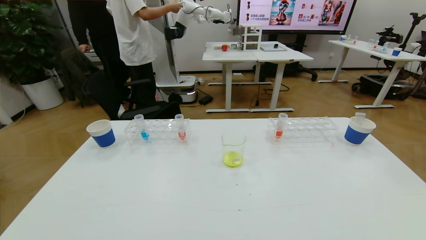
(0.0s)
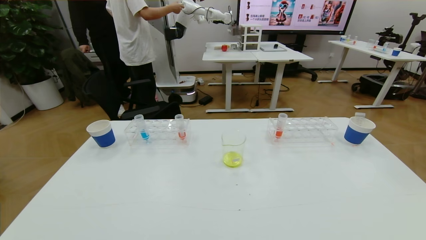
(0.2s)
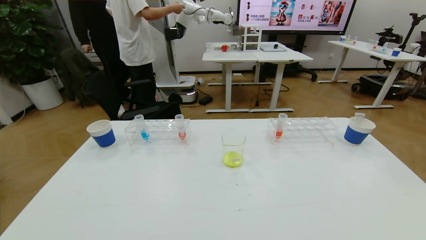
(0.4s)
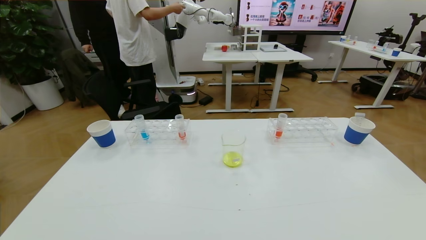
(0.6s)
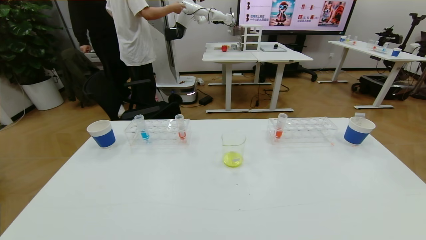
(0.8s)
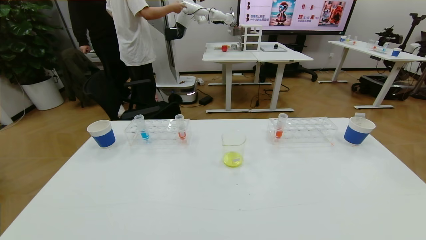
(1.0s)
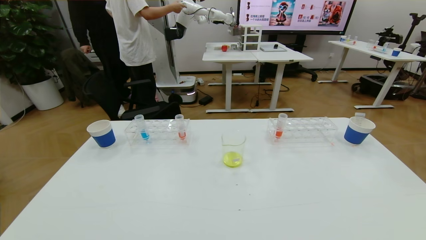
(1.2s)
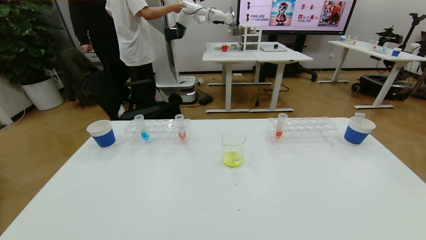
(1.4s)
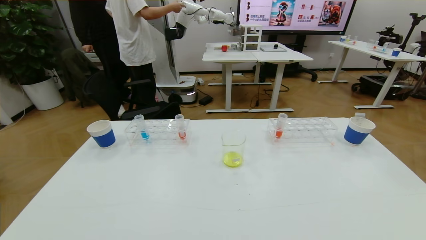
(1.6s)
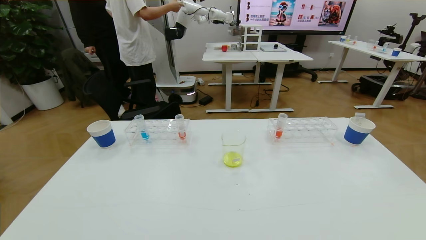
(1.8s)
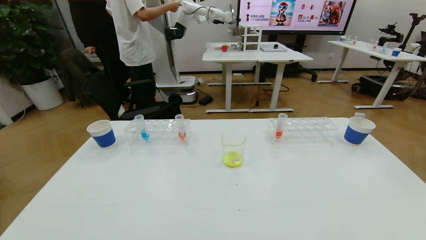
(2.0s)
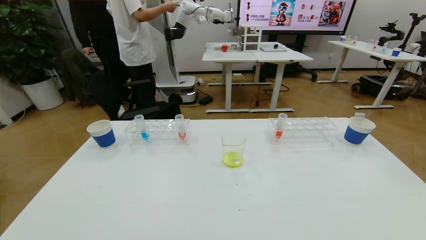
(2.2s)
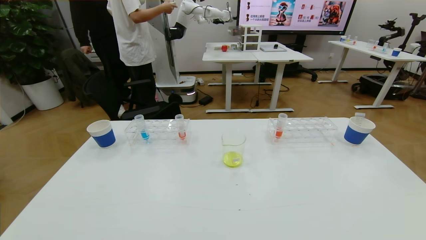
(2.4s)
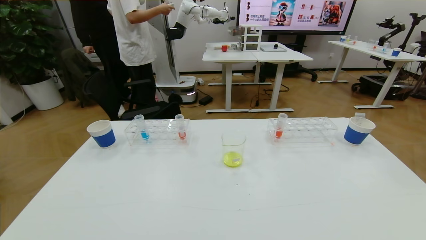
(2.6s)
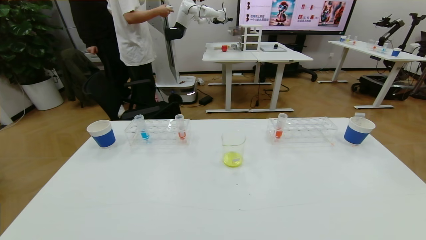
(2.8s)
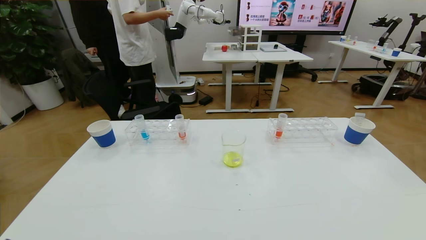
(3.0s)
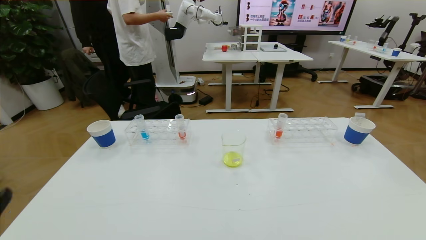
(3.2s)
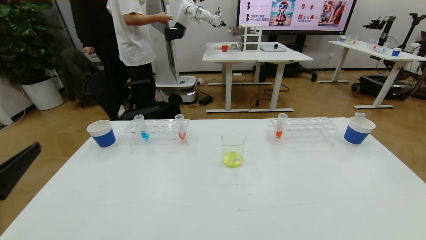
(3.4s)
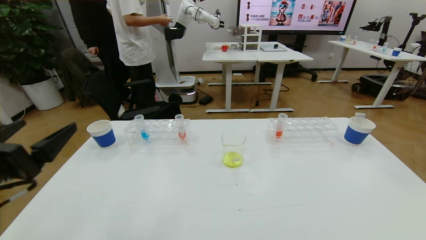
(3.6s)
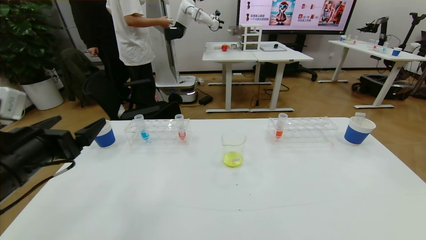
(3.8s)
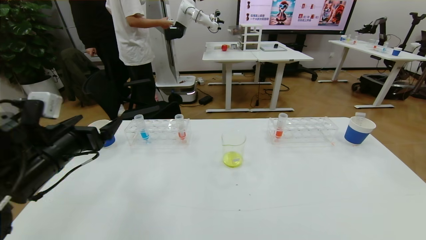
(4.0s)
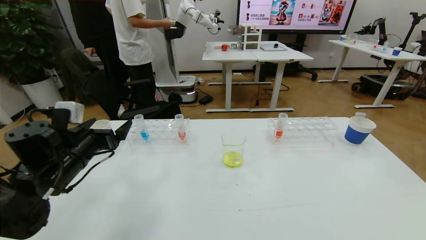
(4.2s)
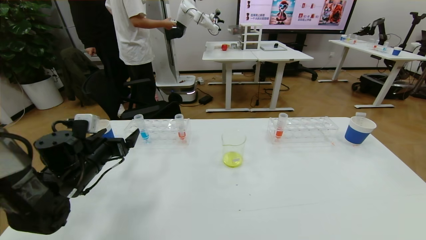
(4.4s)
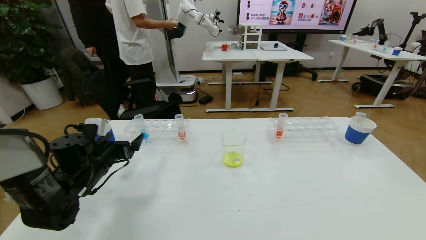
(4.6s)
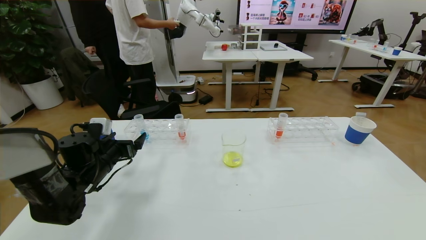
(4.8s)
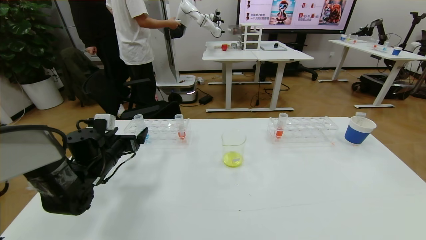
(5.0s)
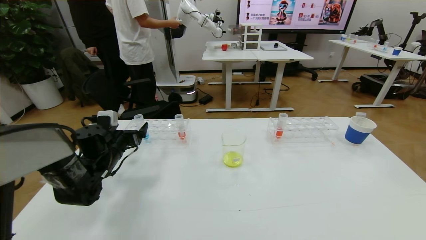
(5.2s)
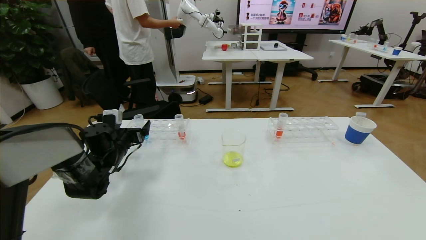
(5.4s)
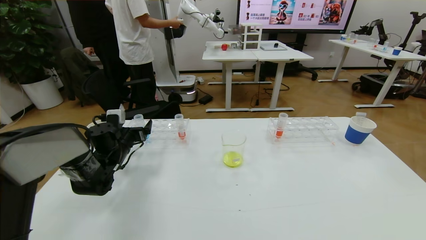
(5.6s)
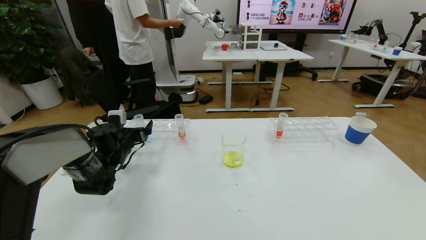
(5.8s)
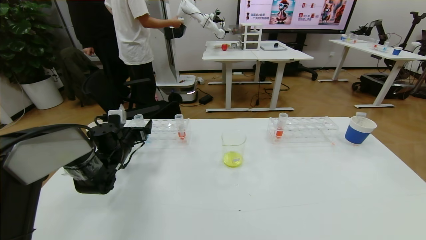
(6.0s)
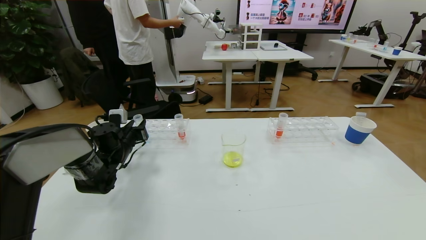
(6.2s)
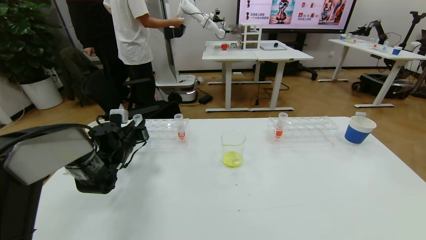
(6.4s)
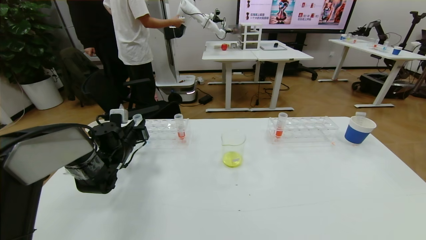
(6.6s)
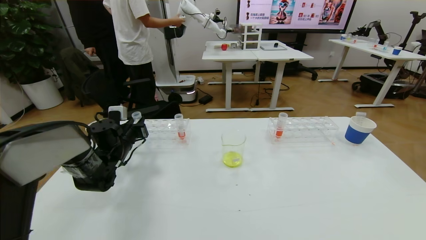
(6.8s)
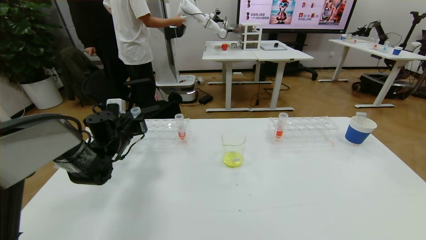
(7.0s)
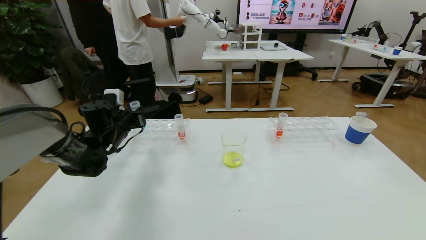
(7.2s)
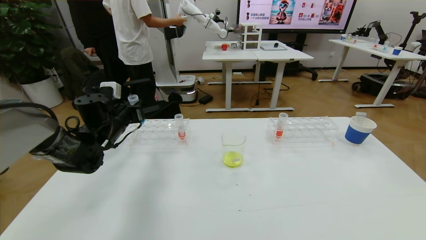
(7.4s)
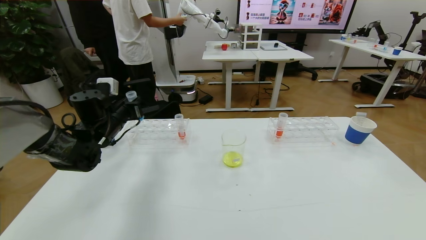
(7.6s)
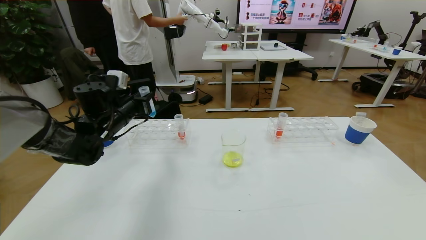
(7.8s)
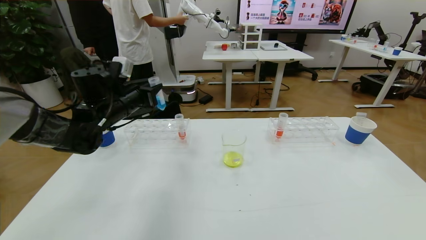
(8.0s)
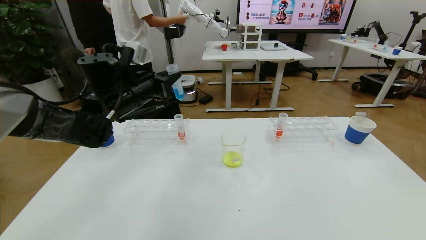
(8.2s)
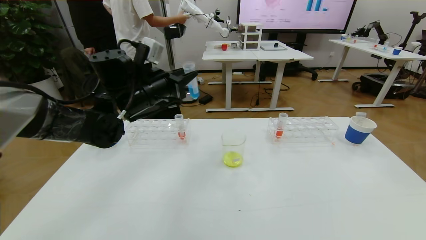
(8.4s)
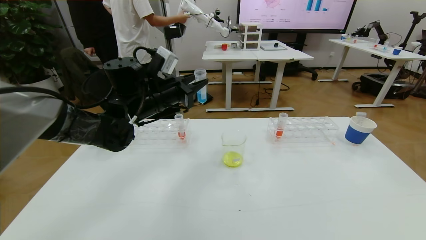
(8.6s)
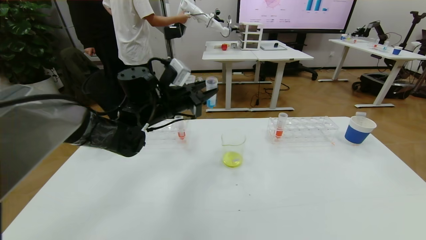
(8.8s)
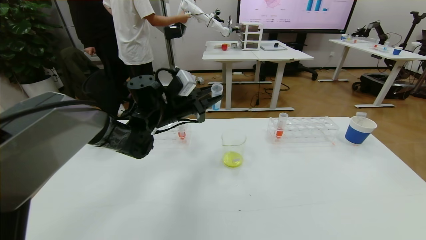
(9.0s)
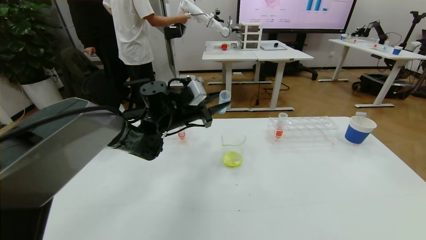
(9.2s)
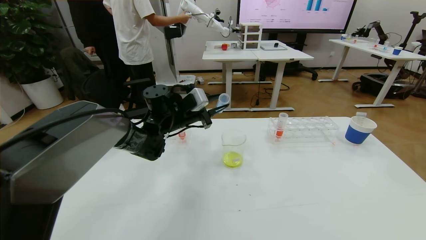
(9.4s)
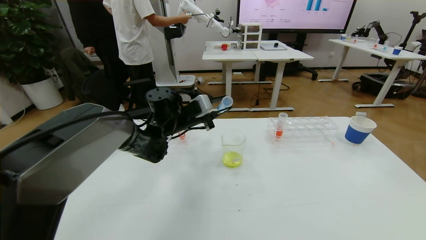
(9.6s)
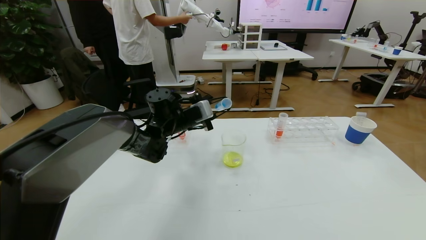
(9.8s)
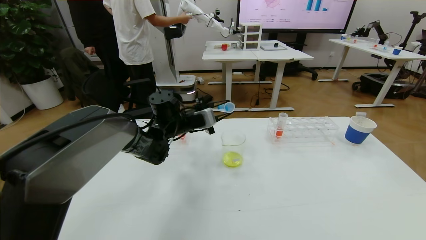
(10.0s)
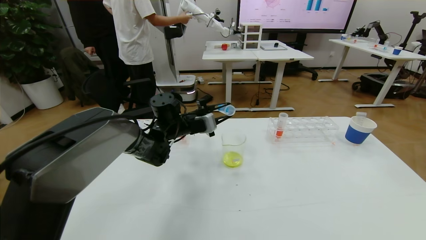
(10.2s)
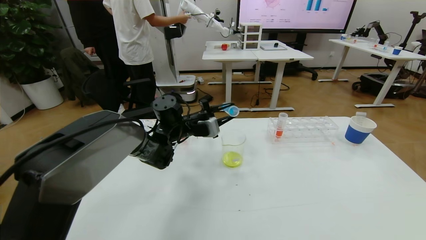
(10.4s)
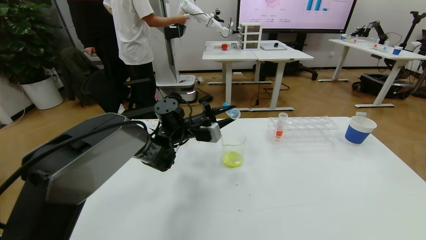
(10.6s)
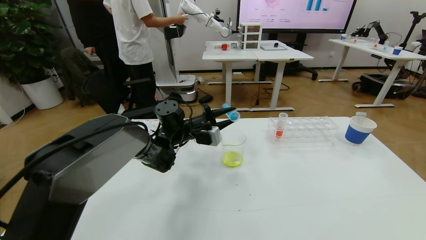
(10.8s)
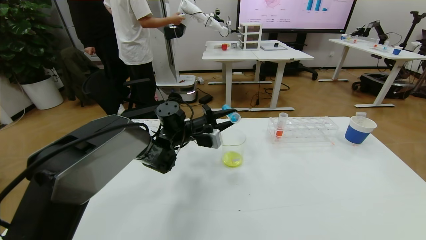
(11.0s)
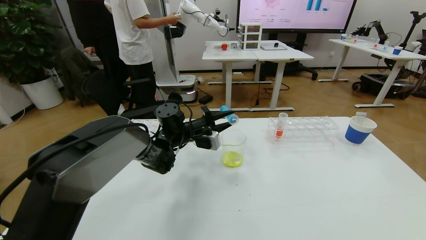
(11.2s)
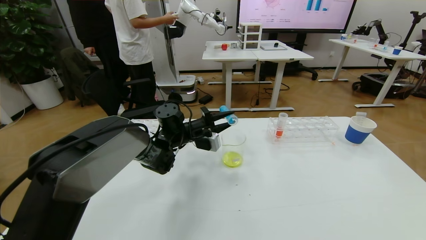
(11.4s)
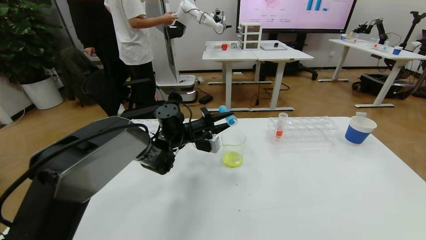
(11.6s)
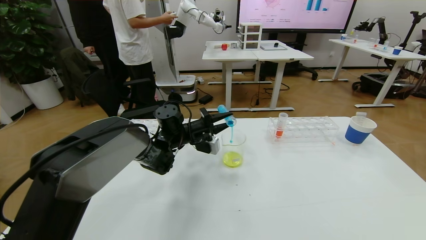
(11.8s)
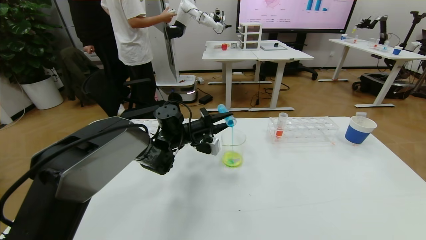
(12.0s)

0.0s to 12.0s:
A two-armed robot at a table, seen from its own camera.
Task of the whole recording: pick up the test tube with yellow pigment and the test tube with blue pigment by grippers and pour them into the beaker.
0.0s to 1.6s: The right gripper is displaced downward by approximately 20 cm.
1.6s to 3.0s: The left gripper shifts roughly 10 cm upward.
3.0s to 4.4s: The left gripper moves forward, about 30 cm.
4.4s to 6.0s: The left gripper shifts roughly 10 cm forward.
6.0s to 7.6s: The left gripper travels upward by roughly 10 cm, and closes.
7.6s to 9.0s: The left gripper goes about 15 cm to the right.
9.0s to 10.4s: The left gripper heads downward, covering some 5 cm.

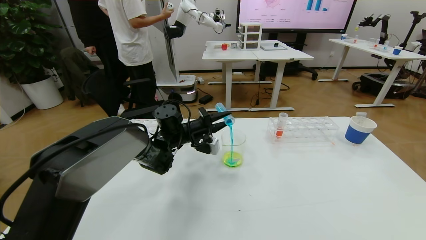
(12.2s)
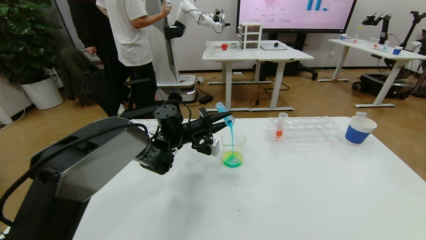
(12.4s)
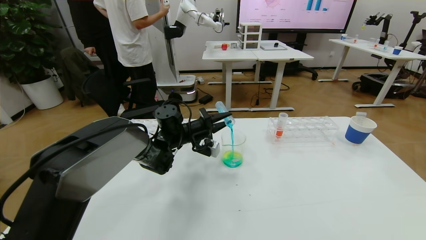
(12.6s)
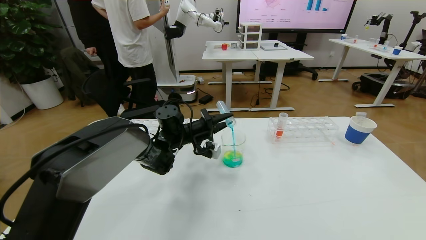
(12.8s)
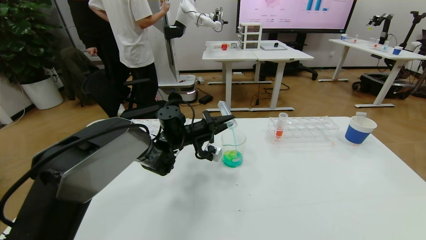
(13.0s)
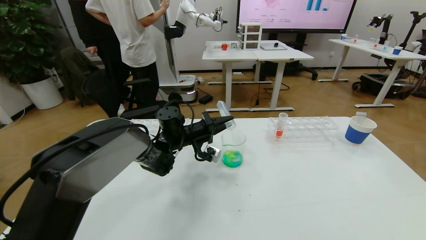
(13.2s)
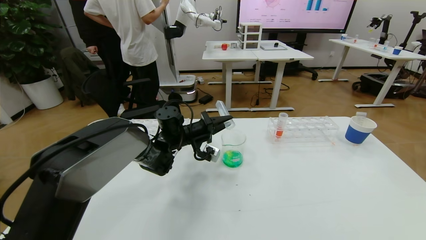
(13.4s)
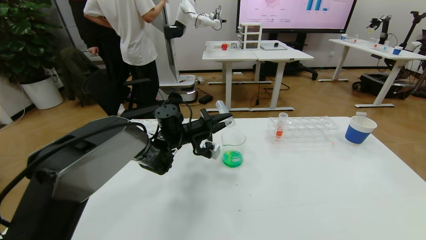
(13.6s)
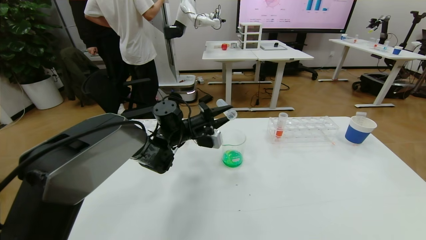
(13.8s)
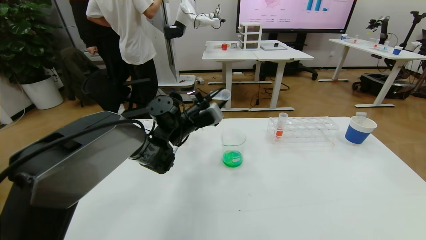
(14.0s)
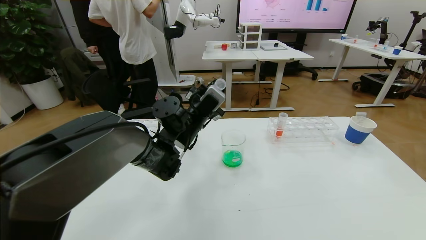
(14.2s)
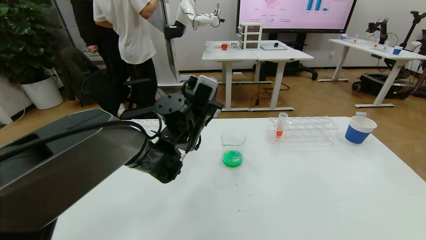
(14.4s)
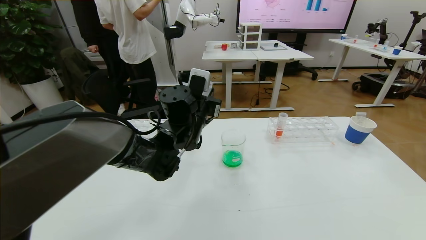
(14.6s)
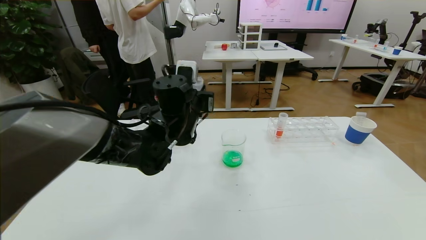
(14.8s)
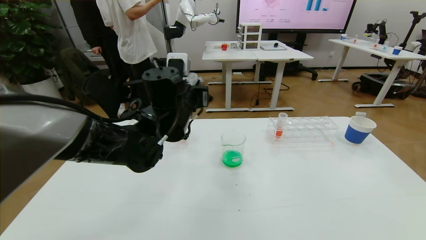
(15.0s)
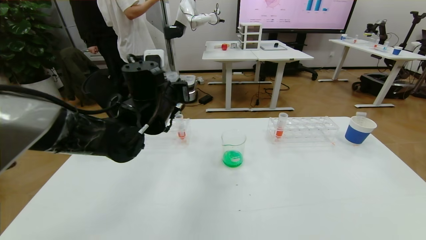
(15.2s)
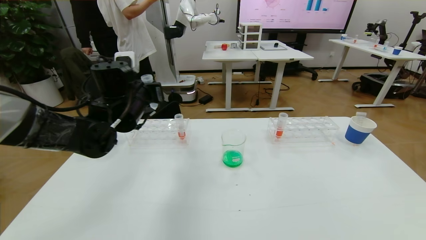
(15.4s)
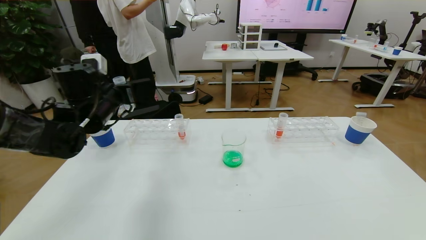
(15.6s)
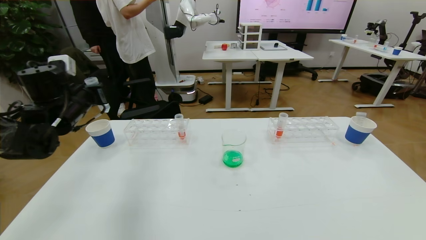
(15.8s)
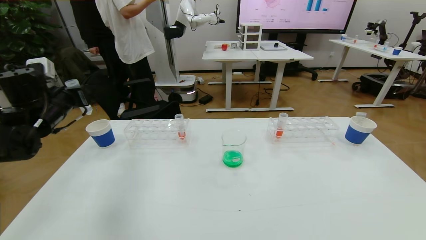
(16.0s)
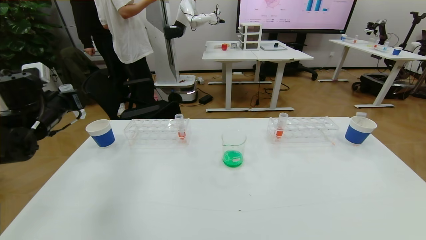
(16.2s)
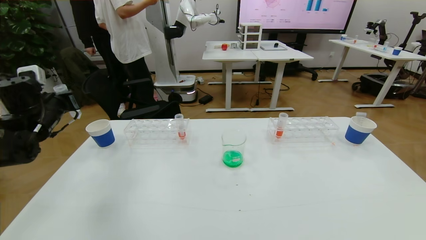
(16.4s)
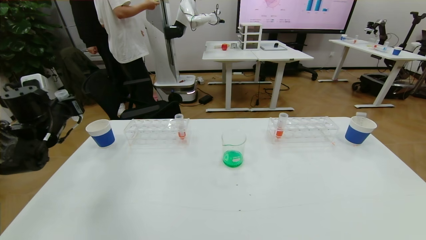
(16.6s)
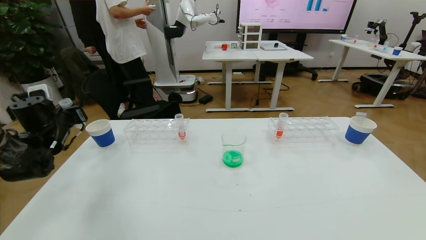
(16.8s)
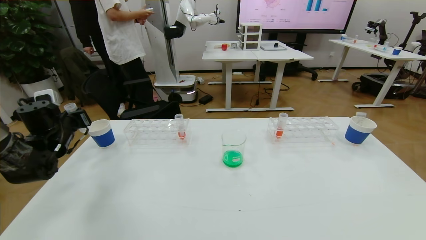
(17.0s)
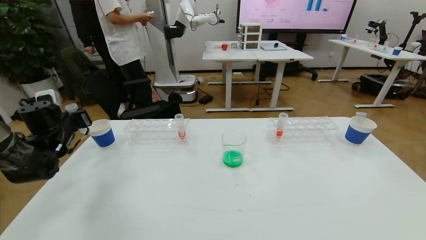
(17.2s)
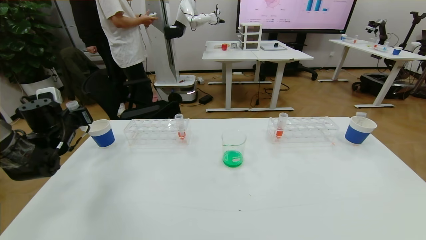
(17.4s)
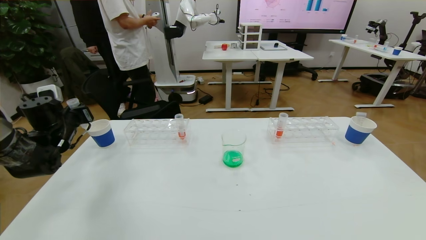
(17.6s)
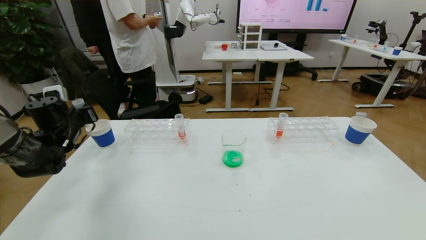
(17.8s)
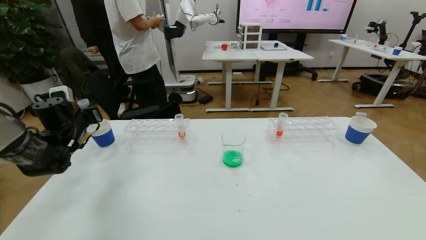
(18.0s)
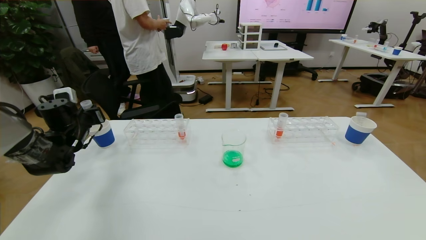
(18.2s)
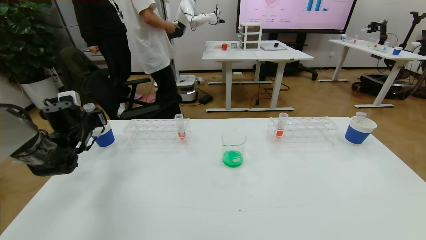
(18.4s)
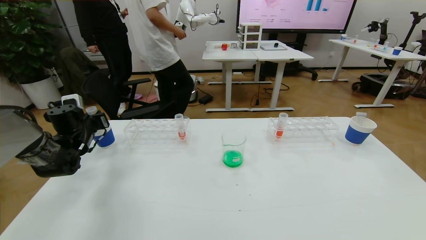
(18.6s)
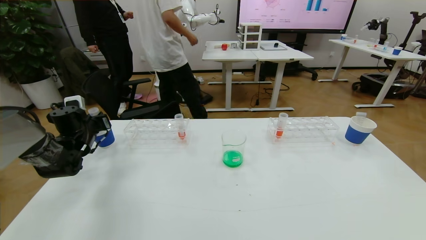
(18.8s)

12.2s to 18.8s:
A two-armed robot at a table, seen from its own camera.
Task of the whole recording: pick up the test tube with yellow pigment and the test tube with blue pigment by grippers and pour them into the beaker.
12.2s to 13.8s: The grippers stay close to where they were, moving slightly.
13.8s to 15.4s: The left gripper is displaced upward, to the left and backward by roughly 15 cm.
15.4s to 17.2s: The left gripper travels to the left and downward by roughly 20 cm.
17.2s to 18.8s: The left gripper ends up roughly 5 cm from where it was.
